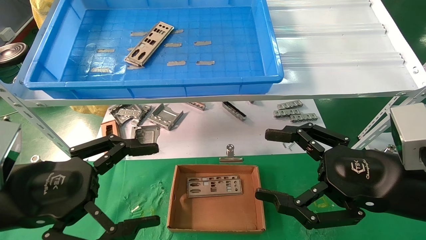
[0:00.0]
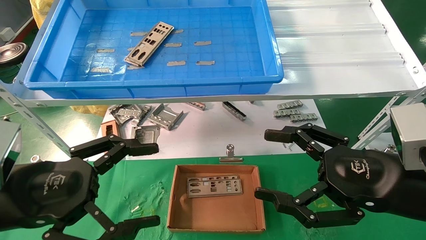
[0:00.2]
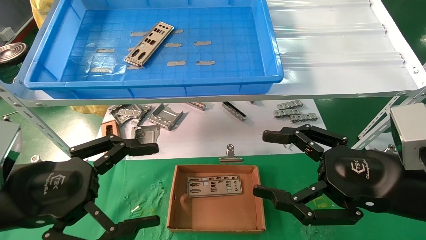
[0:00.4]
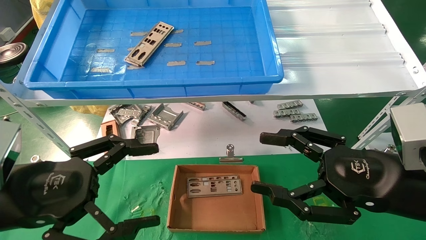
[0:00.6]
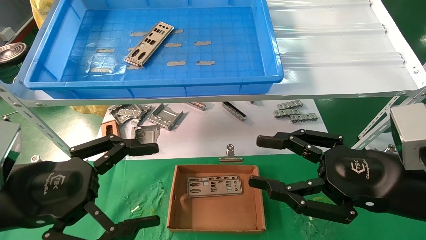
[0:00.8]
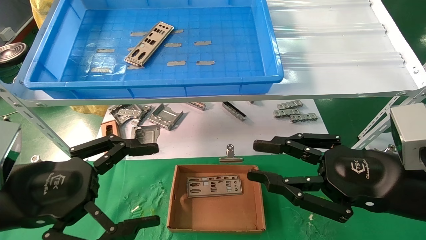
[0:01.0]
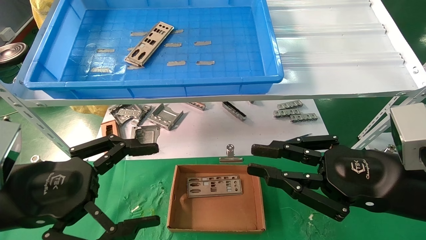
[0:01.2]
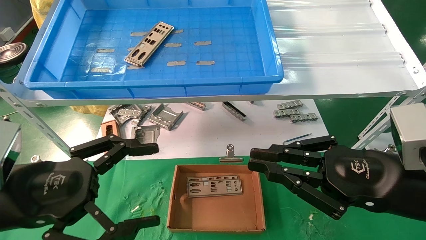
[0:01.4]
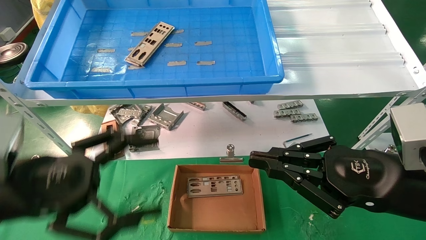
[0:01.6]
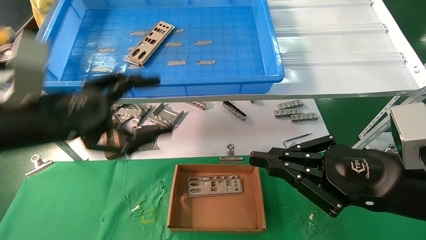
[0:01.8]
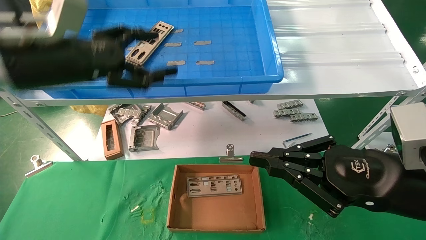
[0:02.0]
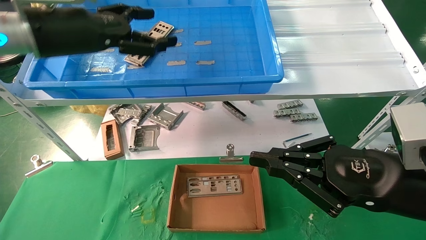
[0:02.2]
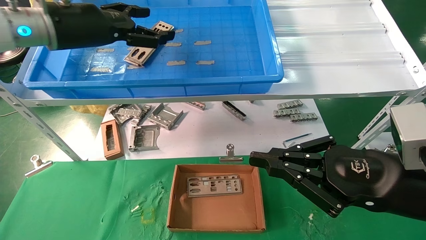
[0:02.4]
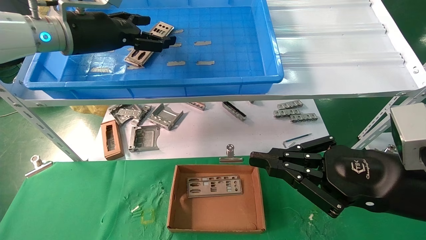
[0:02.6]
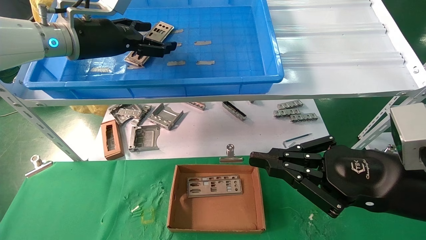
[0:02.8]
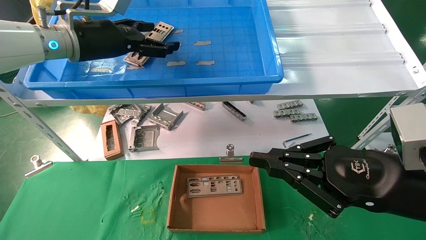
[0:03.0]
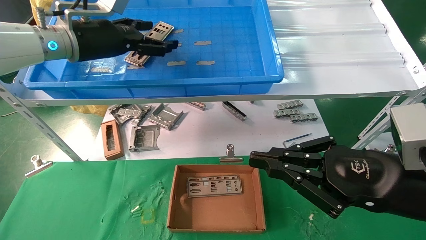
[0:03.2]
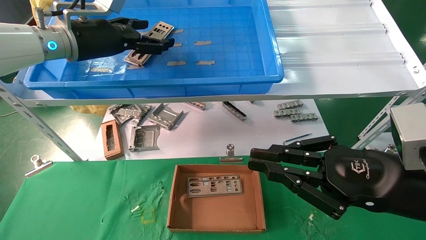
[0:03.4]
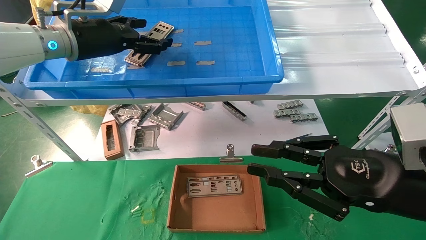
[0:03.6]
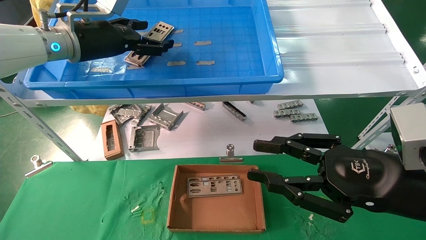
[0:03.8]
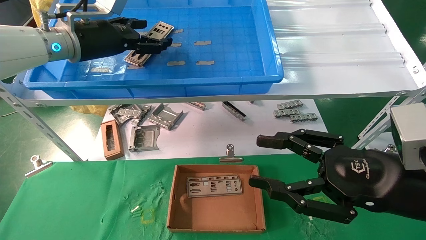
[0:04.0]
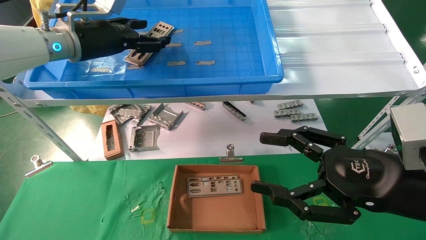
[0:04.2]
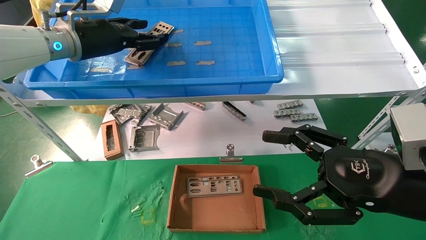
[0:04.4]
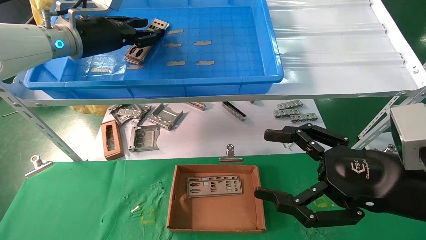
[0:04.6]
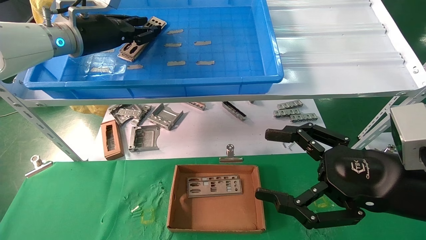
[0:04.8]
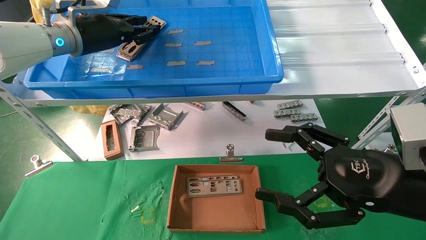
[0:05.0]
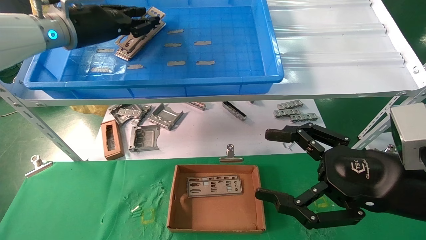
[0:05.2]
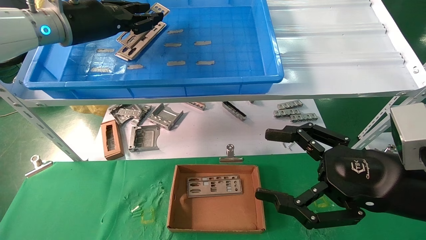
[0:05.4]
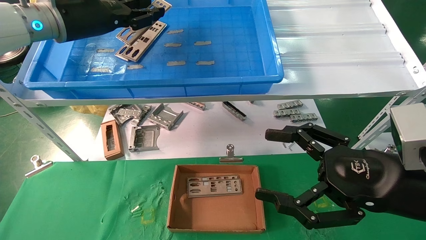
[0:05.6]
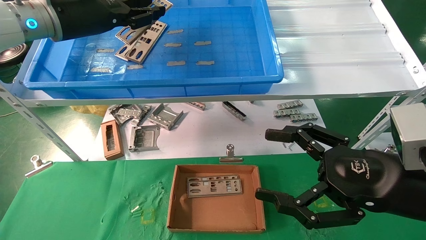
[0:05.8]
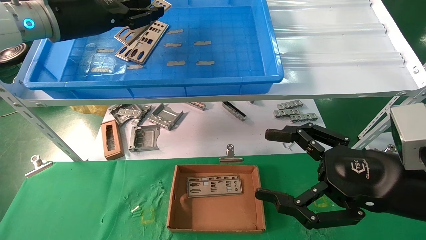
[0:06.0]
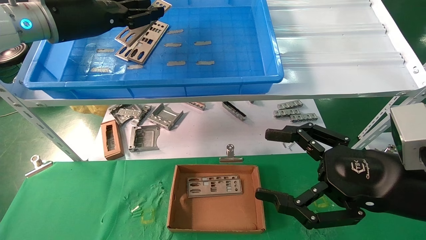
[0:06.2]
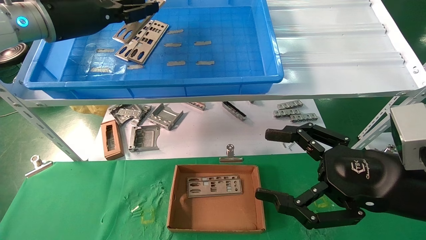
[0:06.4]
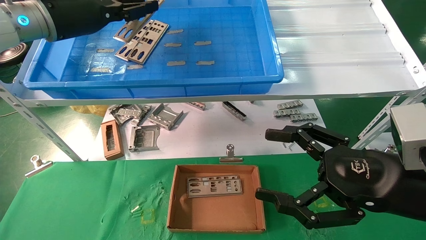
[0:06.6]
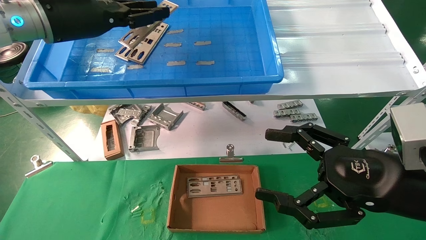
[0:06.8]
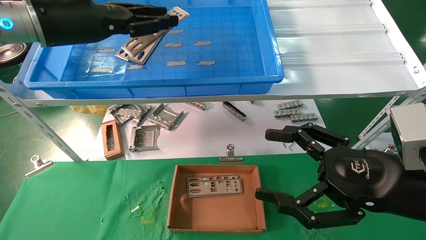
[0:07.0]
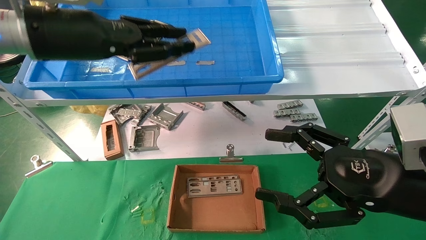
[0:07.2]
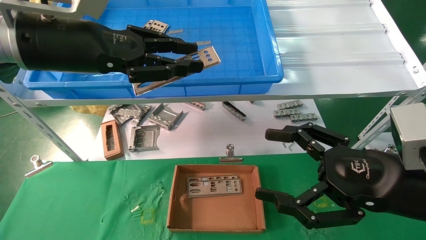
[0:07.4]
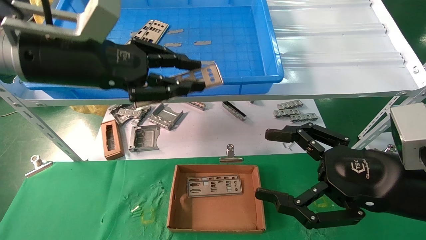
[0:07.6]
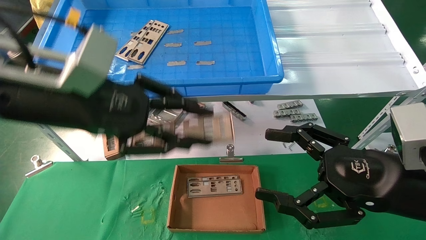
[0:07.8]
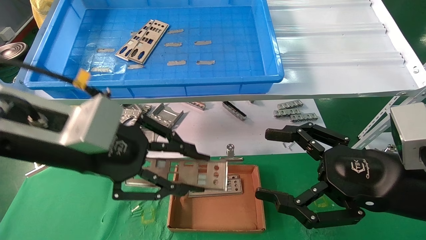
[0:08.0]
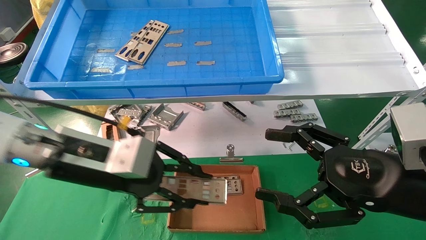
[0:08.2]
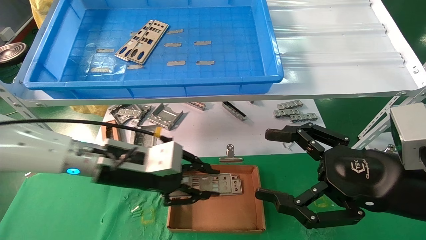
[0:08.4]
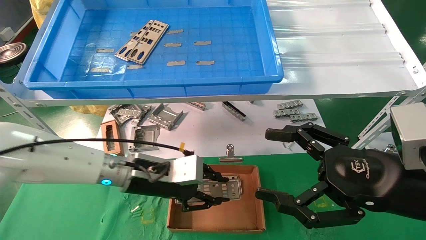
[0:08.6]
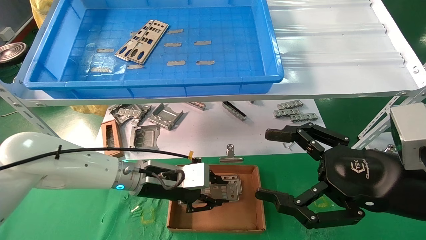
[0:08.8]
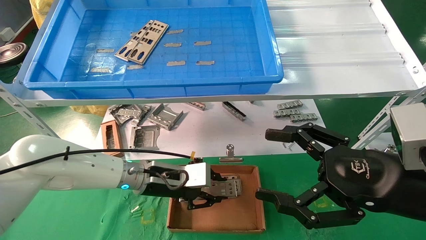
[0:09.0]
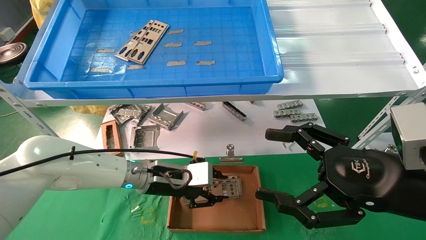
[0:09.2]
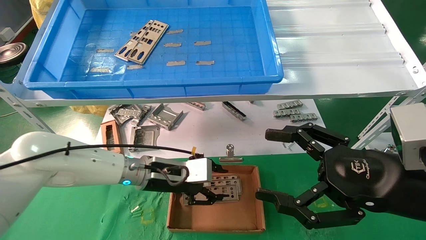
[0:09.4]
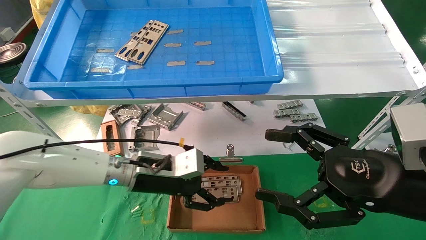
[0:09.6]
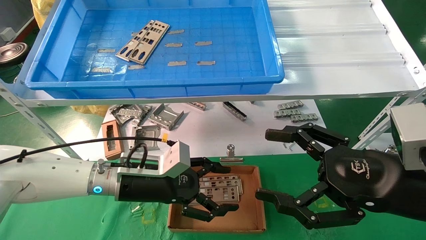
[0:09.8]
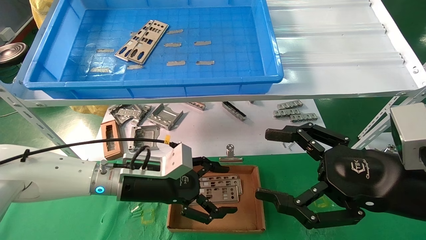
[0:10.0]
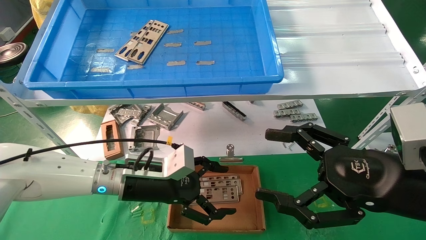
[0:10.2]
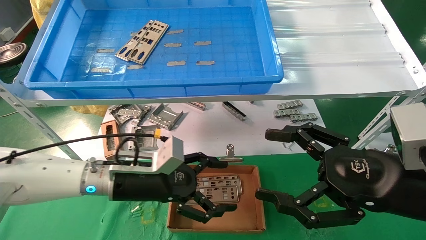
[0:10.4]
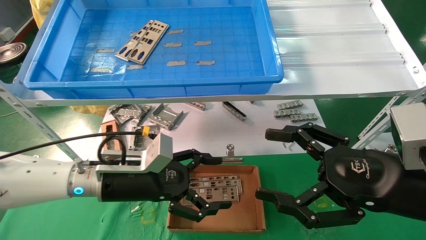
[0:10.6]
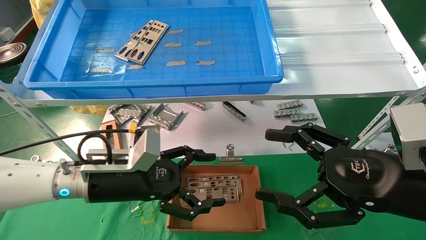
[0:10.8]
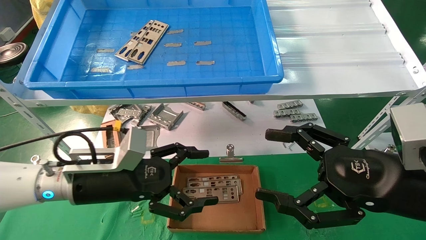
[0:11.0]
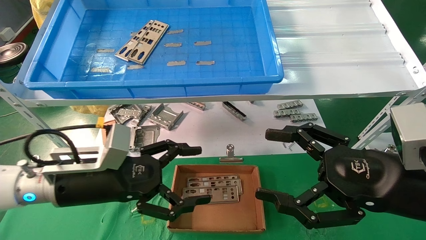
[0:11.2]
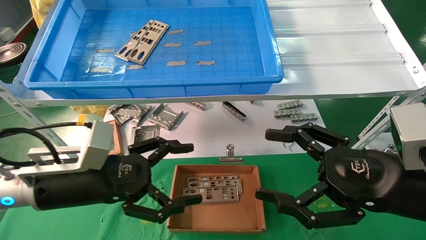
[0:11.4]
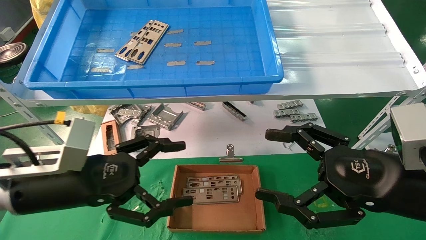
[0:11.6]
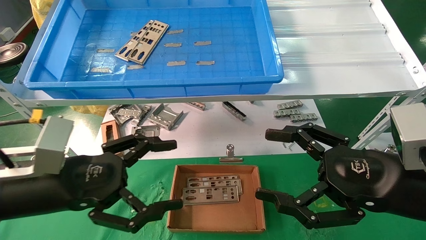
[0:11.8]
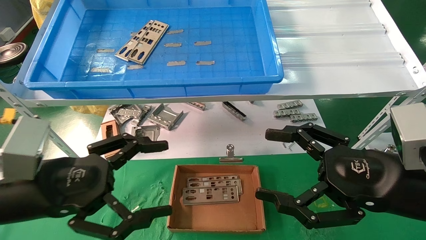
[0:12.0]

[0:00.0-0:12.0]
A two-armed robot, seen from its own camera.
Task of the whole recording: pick up the parts on the tray and put them in the cardboard box.
Step, 0:02.0 to 0:04.8: Pick up the IO bracket from the container box.
Step, 0:05.0 to 0:09.2: Place the IO bracket into the ingredient slot.
0:00.0 to 0:01.6: The right gripper closes.
0:01.6 to 0:03.0: The left gripper heads forward and upward, covering some 25 cm.
0:03.0 to 0:04.4: The right gripper opens.
0:04.4 to 0:06.0: The left gripper closes its fingers.
0:06.0 to 0:07.6: The left gripper goes about 10 cm backward.
0:07.6 to 0:09.0: The left gripper heads downward, covering roughly 25 cm.
0:09.0 to 0:10.4: The left gripper heads backward, covering roughly 5 cm, and opens its fingers.
0:10.4 to 0:12.0: The left gripper shifts roughly 20 cm backward, to the left and upward.

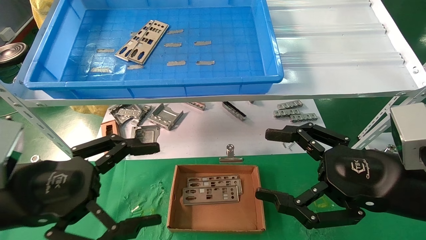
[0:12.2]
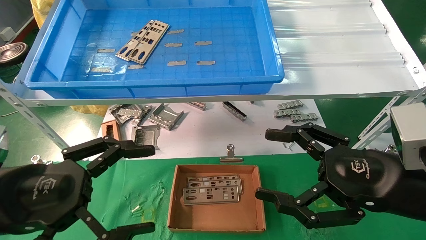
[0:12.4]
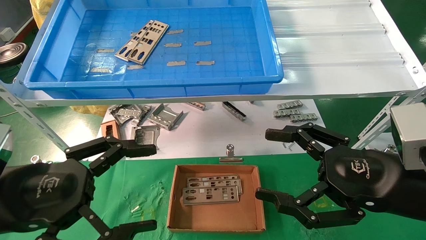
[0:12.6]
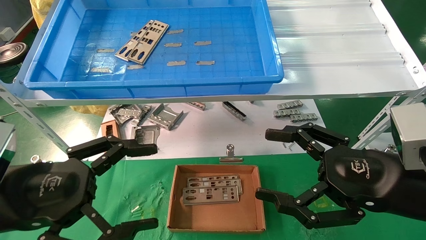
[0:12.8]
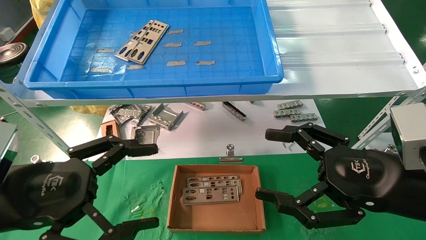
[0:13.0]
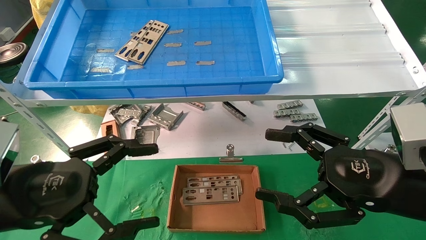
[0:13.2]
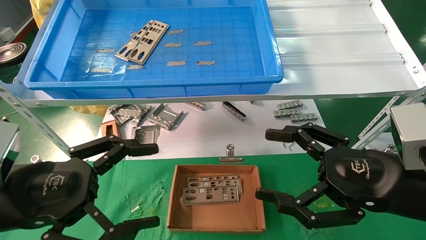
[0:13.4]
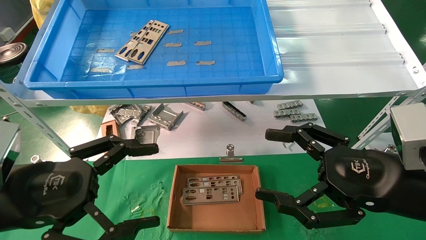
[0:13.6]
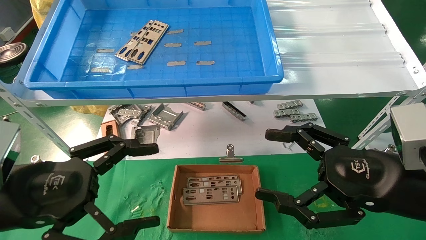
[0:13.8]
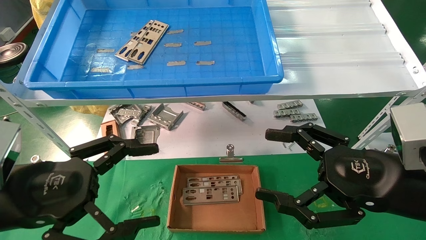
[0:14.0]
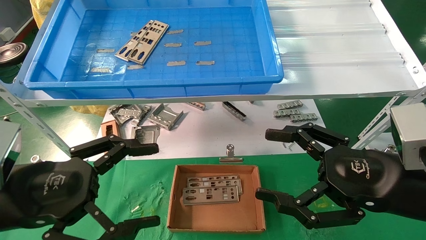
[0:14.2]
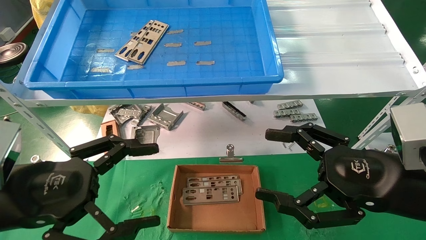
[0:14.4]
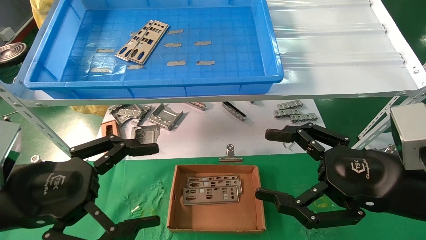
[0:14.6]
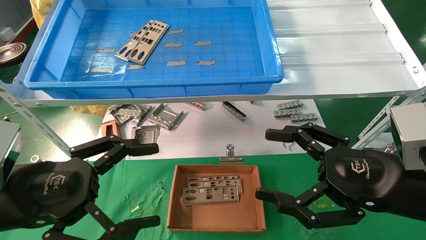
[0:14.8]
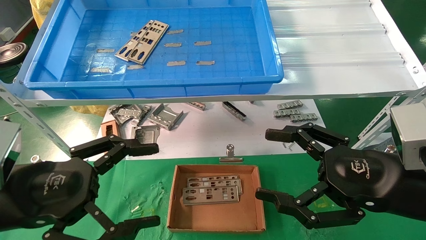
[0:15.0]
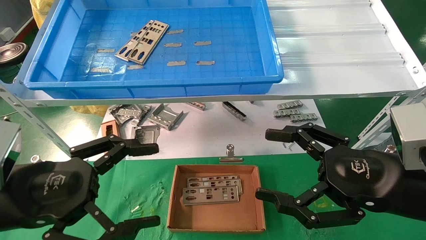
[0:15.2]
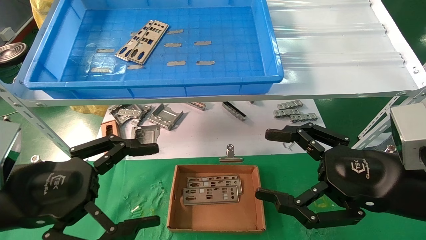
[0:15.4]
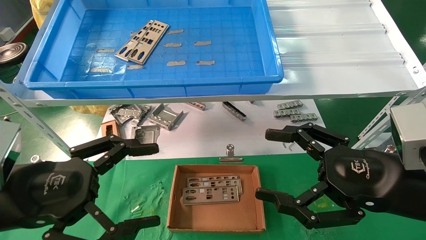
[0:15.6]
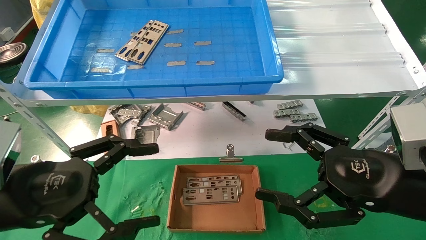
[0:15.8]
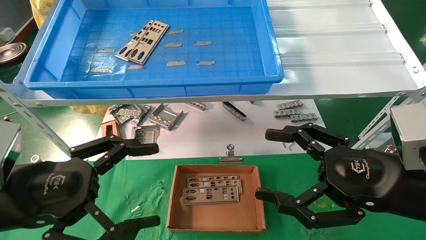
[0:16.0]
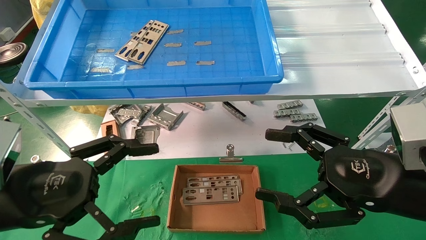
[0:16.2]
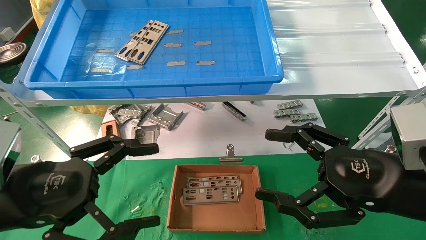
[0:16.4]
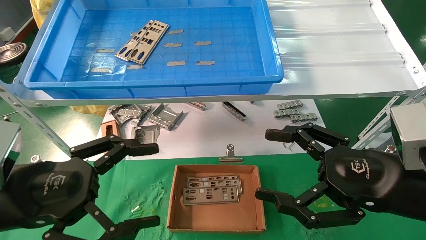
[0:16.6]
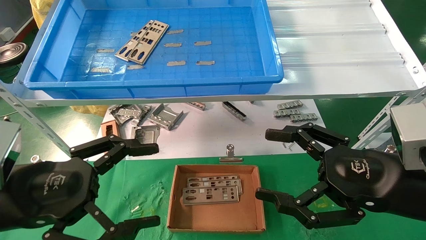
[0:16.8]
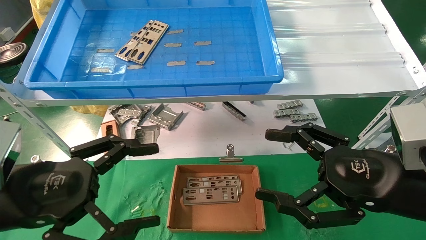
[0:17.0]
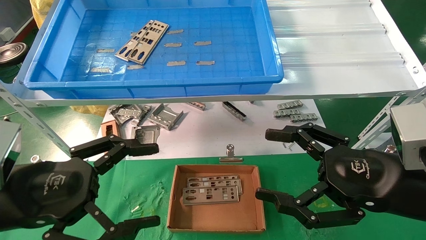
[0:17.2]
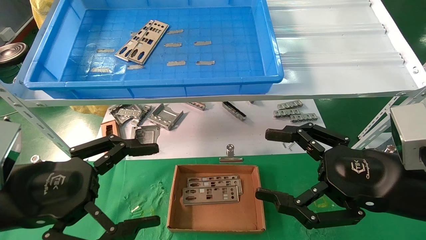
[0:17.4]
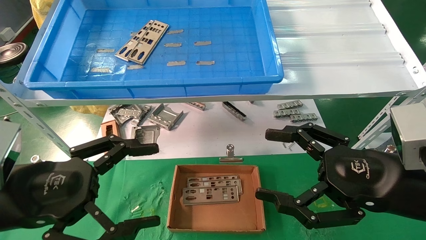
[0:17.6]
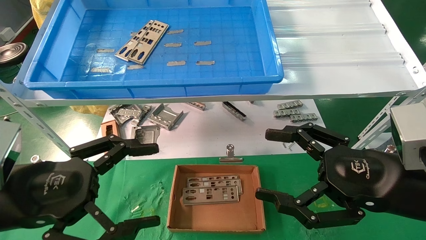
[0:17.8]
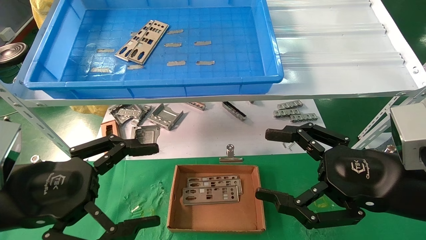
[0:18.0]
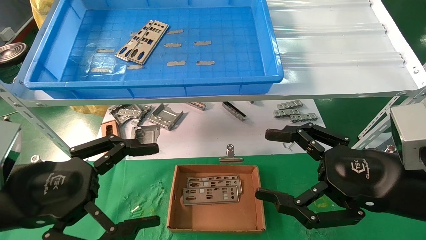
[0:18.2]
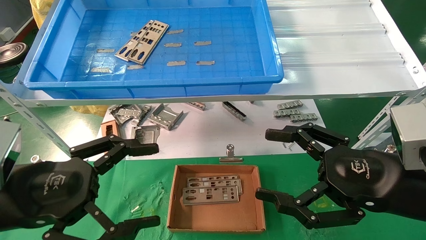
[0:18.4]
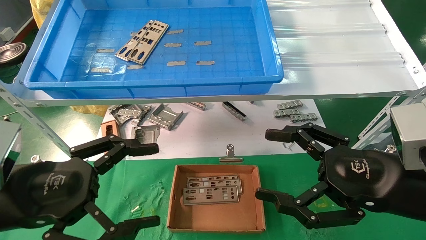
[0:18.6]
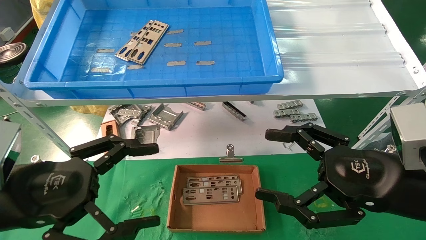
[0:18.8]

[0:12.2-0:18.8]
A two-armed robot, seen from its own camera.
Task of the whole recording: pick up the parts on the tray and put them in the cardboard box.
0:12.2 to 0:18.8: Both grippers stay about where they are.
